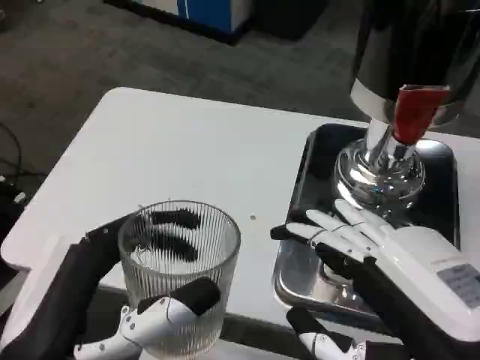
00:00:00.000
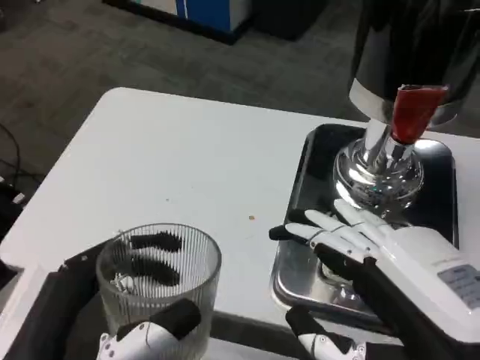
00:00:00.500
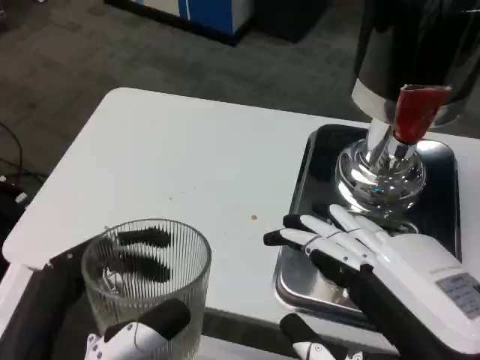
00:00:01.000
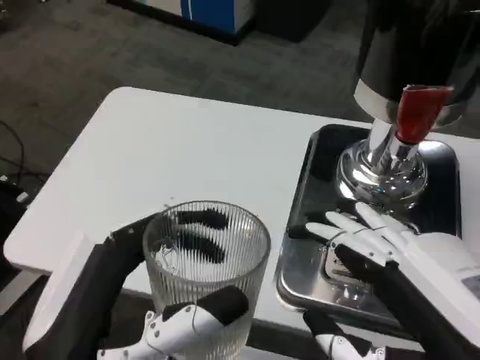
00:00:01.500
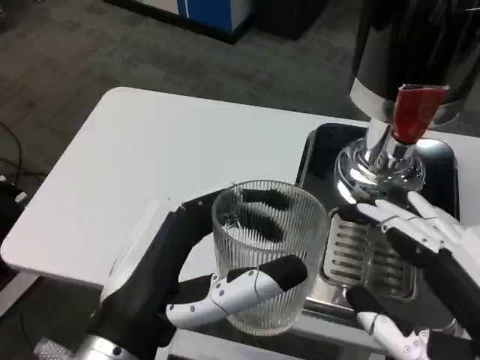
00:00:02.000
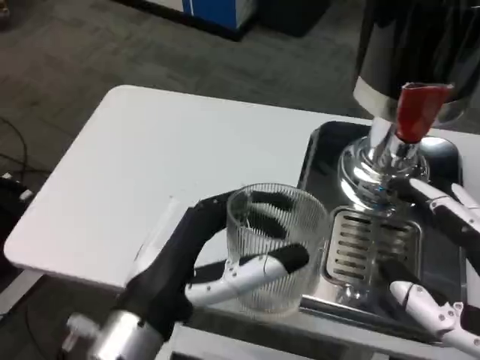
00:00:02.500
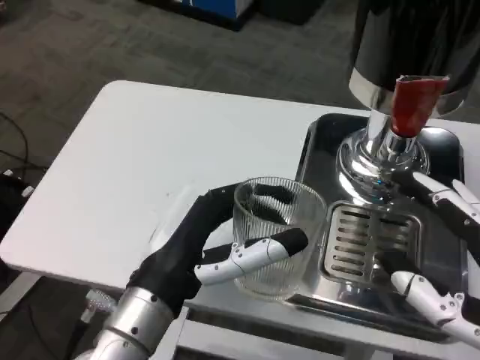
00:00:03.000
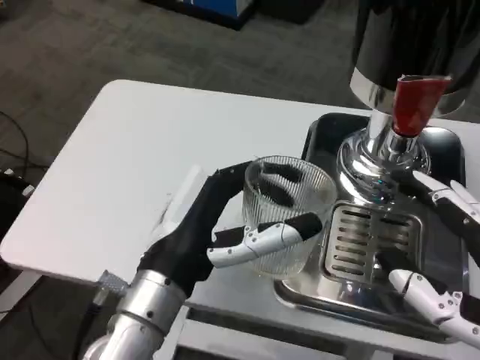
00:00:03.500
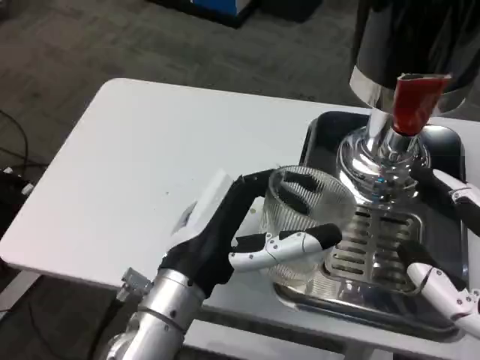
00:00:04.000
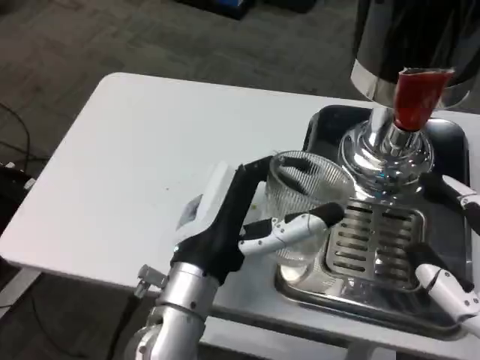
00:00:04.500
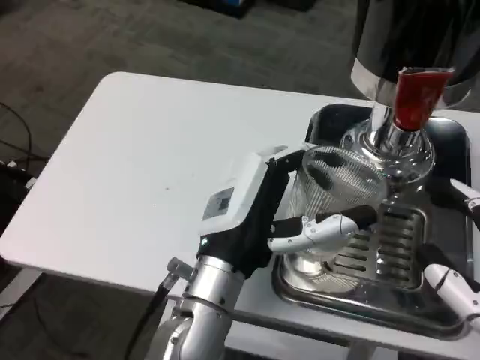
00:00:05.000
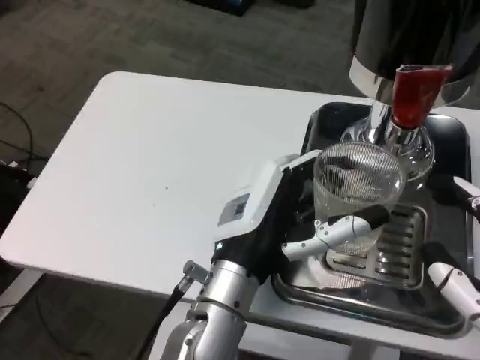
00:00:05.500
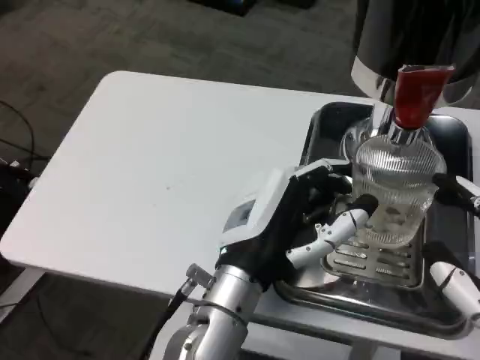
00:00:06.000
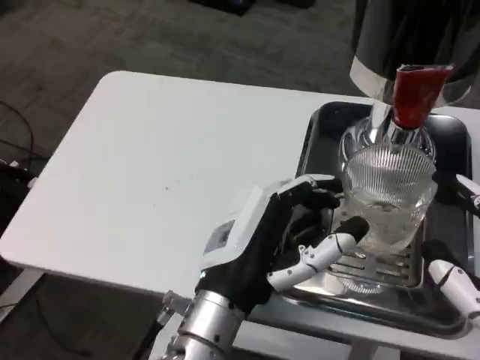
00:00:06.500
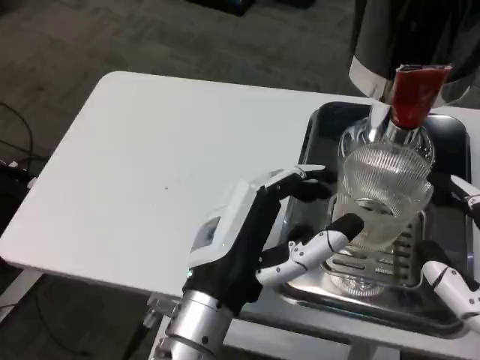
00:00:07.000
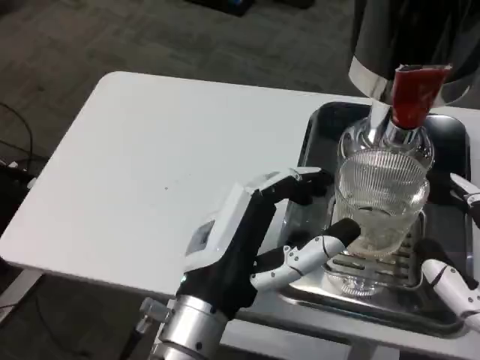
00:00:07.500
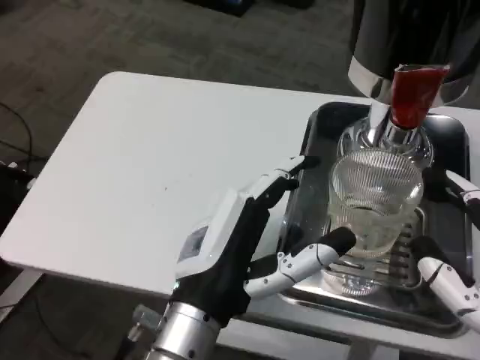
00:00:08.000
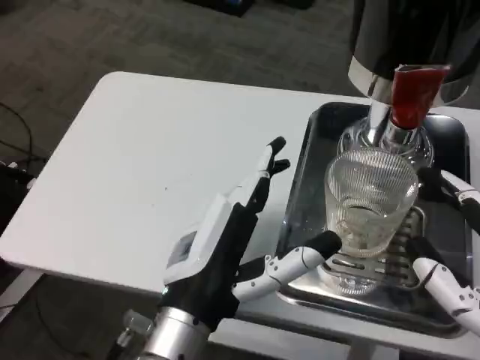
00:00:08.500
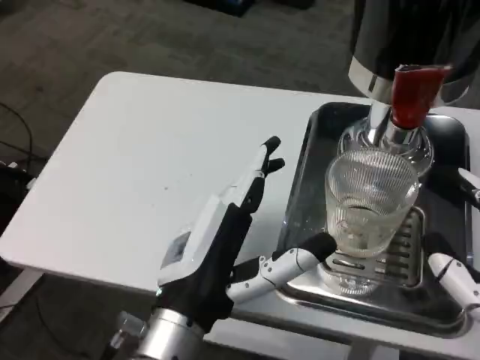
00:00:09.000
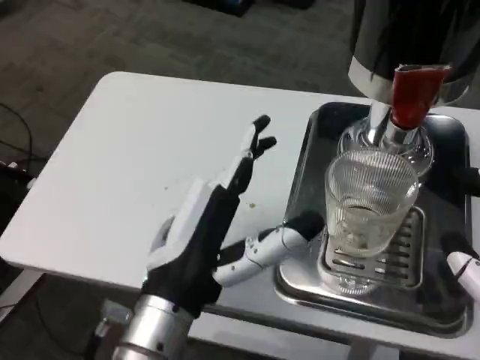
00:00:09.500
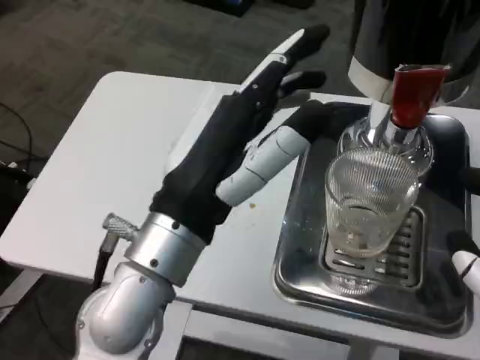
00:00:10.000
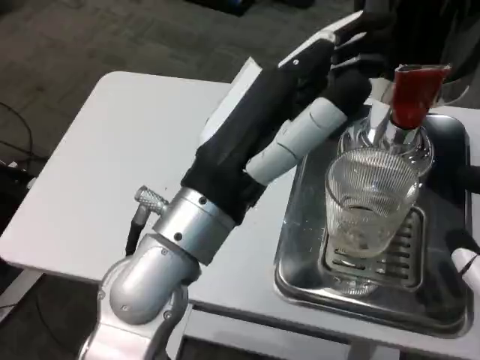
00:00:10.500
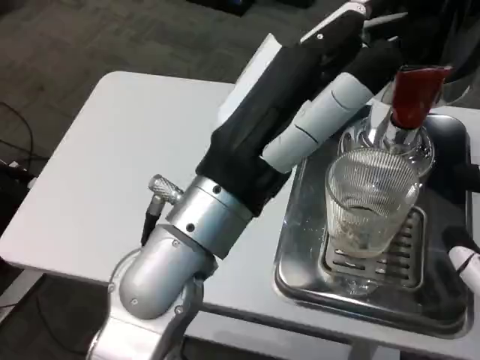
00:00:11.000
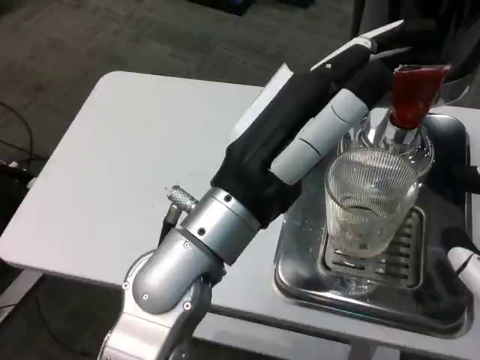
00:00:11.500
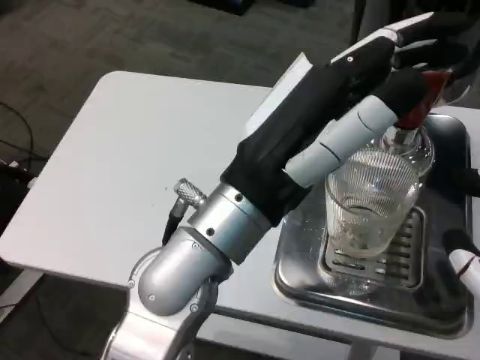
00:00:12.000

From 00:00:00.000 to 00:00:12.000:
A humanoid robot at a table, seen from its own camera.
Task of the whole recording: Grasp the cup under the faucet to collect the drink, then remove the cup.
From 00:00:00.000 to 00:00:02.000: The left hand changes place by roughly 5 cm.
From 00:00:02.000 to 00:00:04.000: The left hand goes some 10 cm forward.
From 00:00:04.000 to 00:00:06.000: The left hand is displaced to the right by approximately 5 cm.
From 00:00:06.000 to 00:00:08.000: The left hand changes place by approximately 5 cm.
From 00:00:08.000 to 00:00:10.000: The left hand travels upward by about 10 cm.

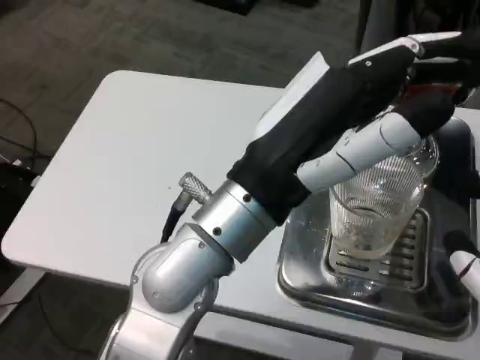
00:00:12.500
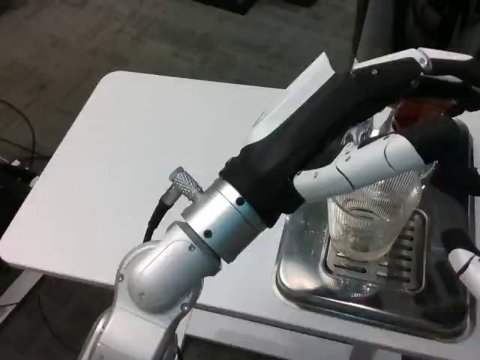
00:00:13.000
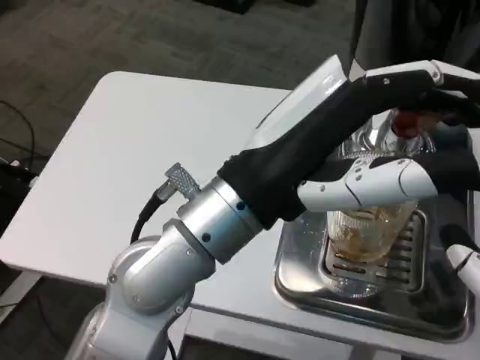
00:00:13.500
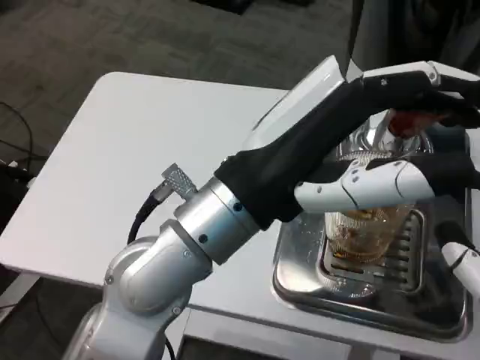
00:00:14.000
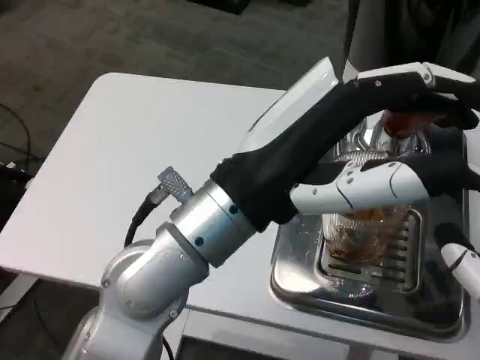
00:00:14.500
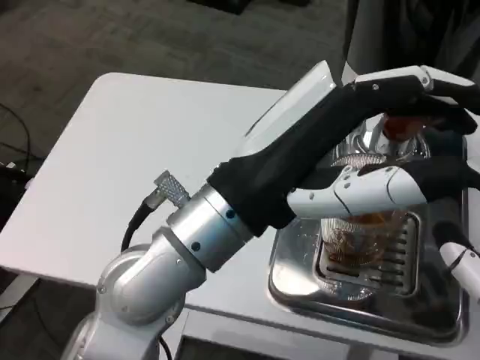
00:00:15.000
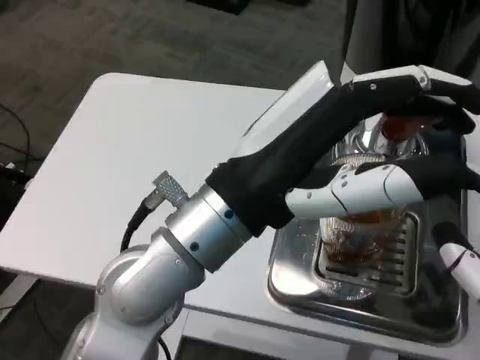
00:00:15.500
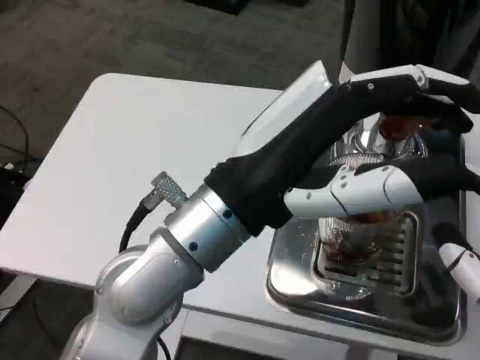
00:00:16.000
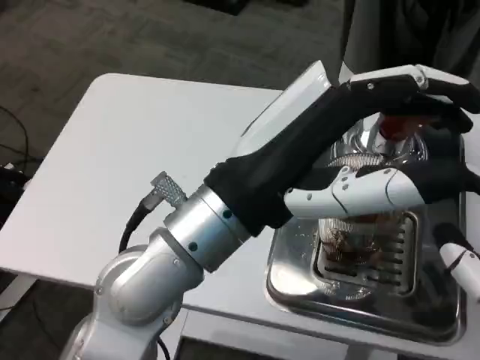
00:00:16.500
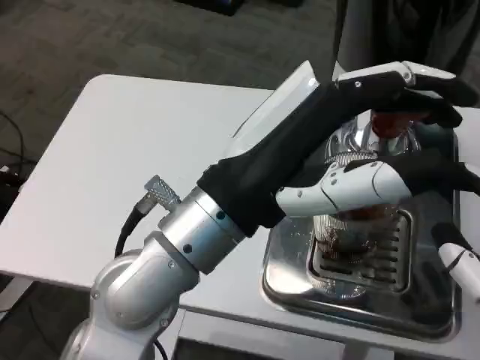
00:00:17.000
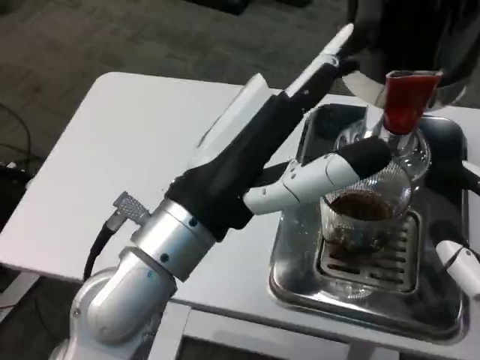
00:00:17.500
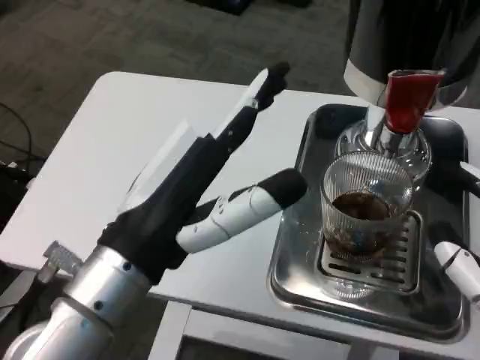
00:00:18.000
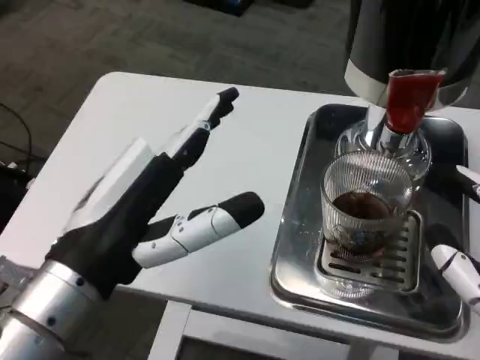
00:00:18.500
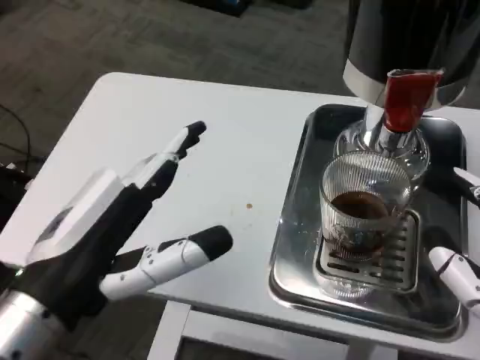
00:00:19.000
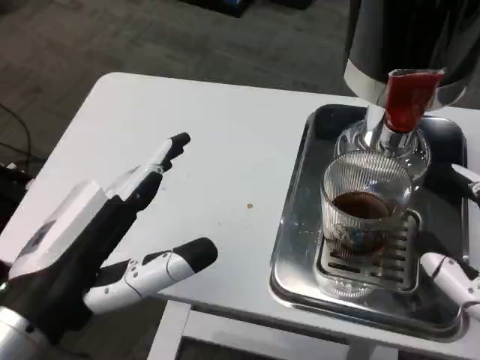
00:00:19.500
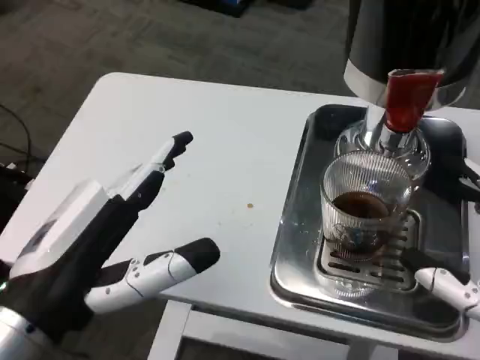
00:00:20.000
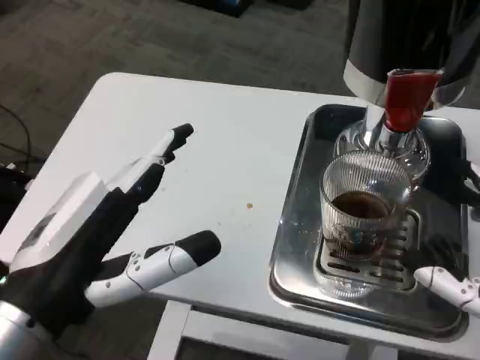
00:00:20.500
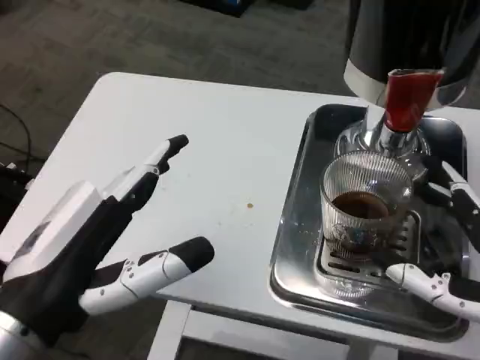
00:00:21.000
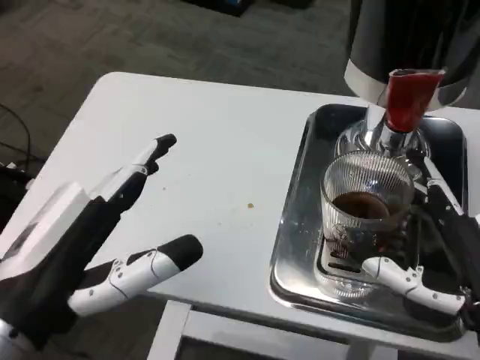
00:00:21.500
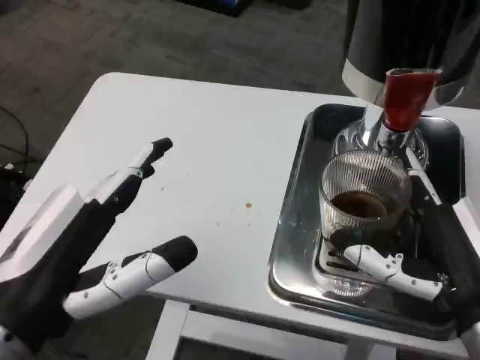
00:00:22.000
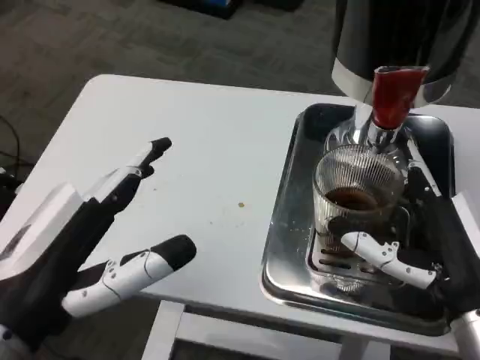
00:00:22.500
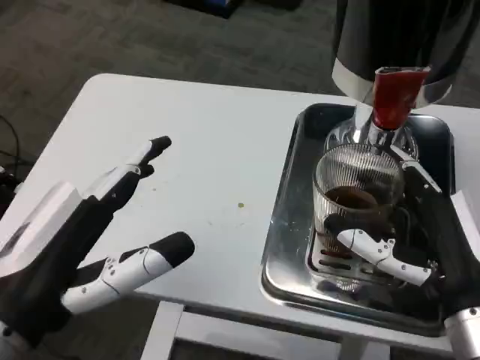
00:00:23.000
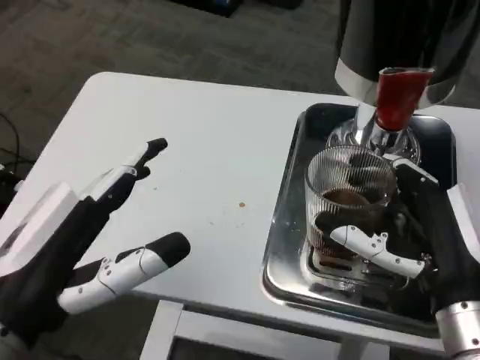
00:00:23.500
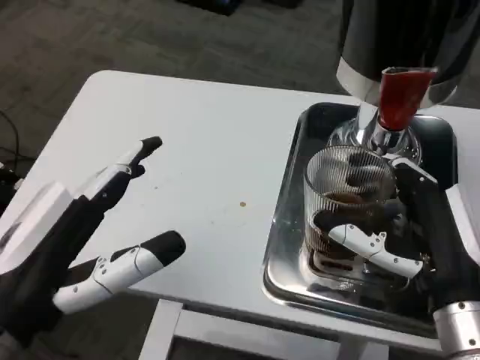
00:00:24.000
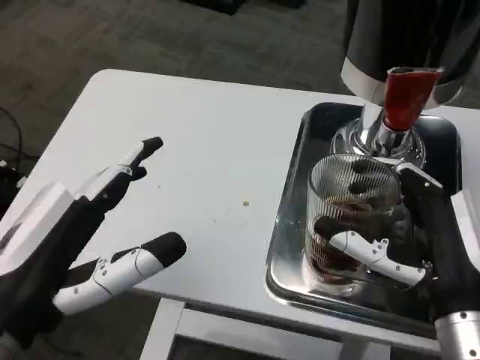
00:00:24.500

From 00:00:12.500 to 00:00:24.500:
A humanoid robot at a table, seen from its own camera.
Task of the whole recording: Grasp the cup under the faucet to collect the drink, then remove the cup.
From 00:00:14.500 to 00:00:16.500: Neither hand changes place.
From 00:00:16.500 to 00:00:18.500: The left hand moves to the left, roughly 10 cm.
From 00:00:18.500 to 00:00:20.500: The hands make only small movements.
From 00:00:20.500 to 00:00:22.500: The right hand goes approximately 5 cm forward.

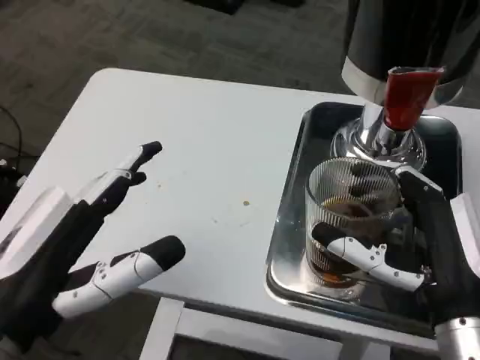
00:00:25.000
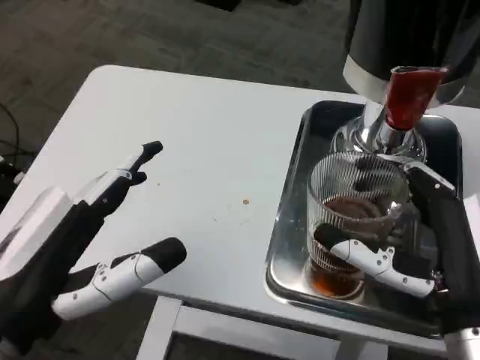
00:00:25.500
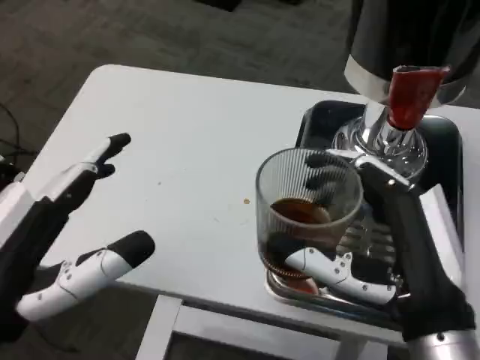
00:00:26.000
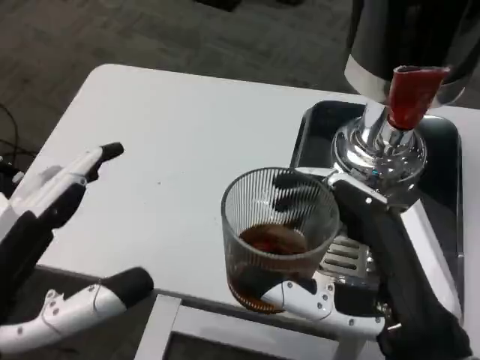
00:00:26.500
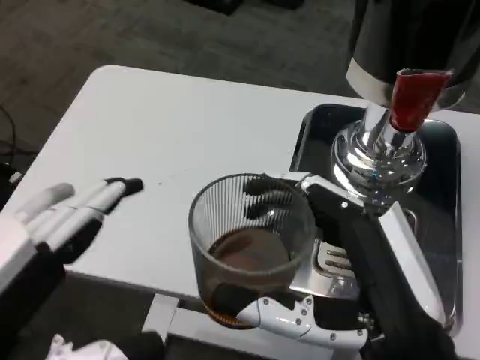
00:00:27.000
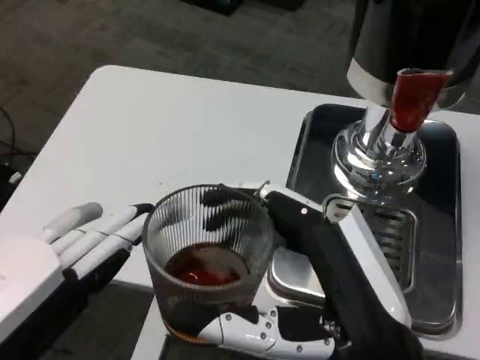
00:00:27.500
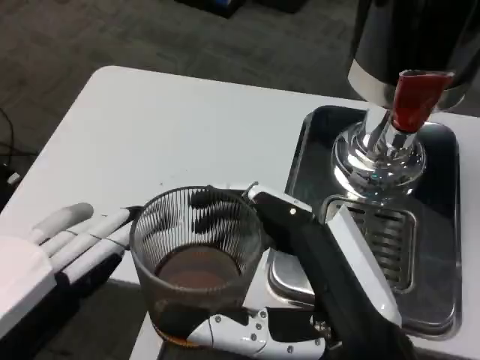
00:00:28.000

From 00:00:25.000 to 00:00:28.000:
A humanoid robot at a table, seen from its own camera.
Task of the whole recording: Grasp the cup under the faucet to collect the drink, then remove the cup.
From 00:00:25.000 to 00:00:26.500: The right hand goes roughly 5 cm backward; the left hand ends up about 5 cm from where it was.
